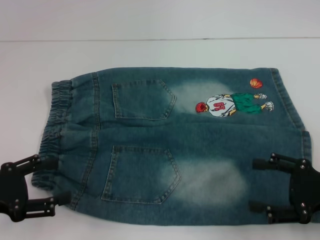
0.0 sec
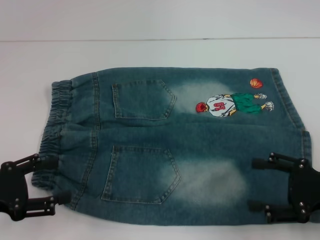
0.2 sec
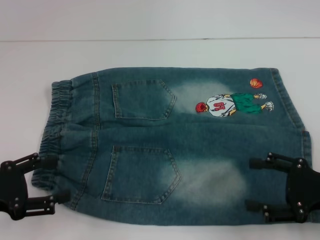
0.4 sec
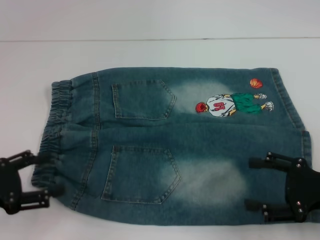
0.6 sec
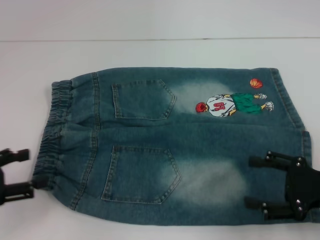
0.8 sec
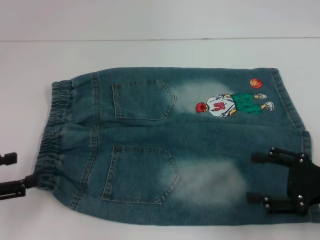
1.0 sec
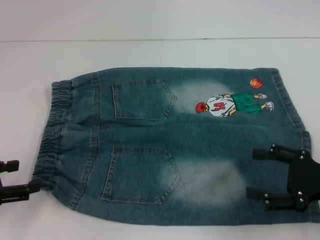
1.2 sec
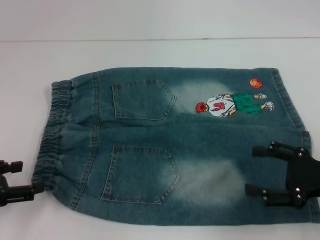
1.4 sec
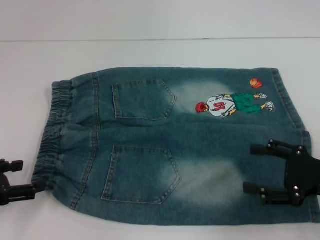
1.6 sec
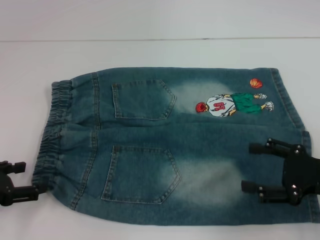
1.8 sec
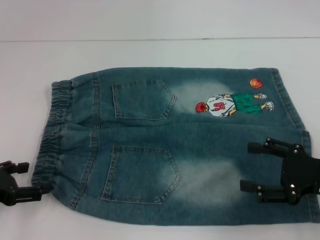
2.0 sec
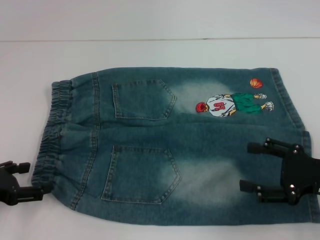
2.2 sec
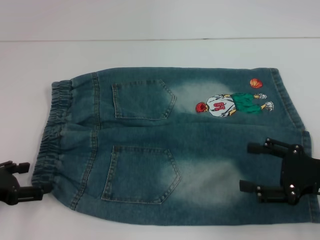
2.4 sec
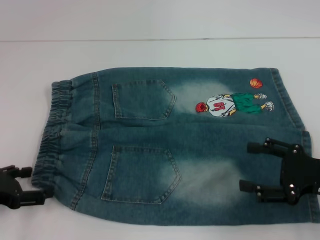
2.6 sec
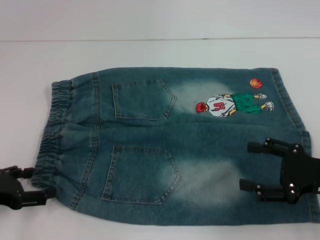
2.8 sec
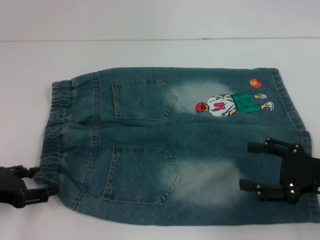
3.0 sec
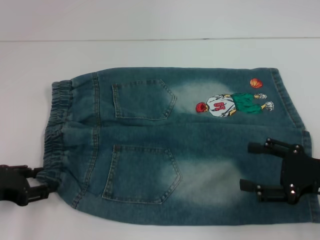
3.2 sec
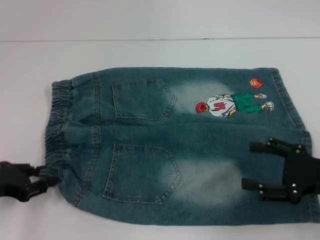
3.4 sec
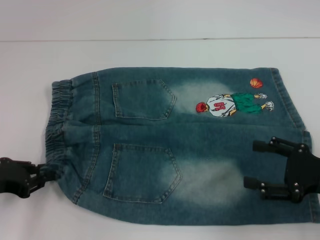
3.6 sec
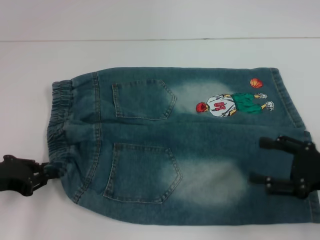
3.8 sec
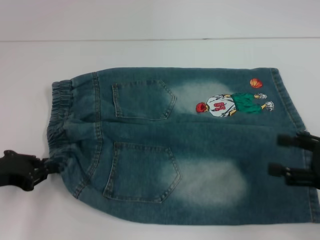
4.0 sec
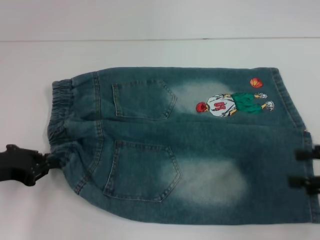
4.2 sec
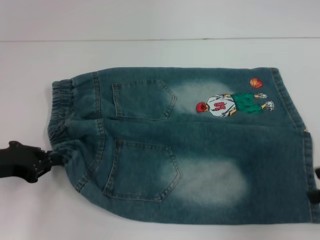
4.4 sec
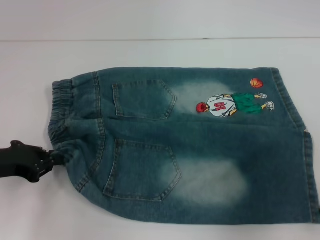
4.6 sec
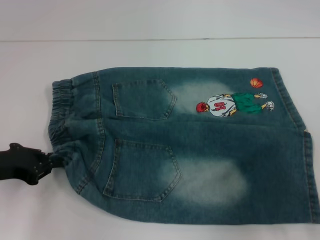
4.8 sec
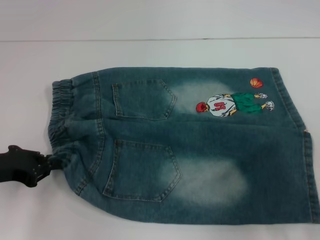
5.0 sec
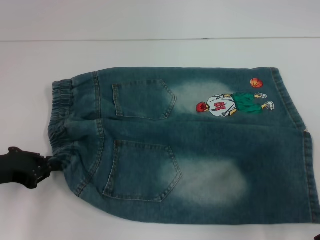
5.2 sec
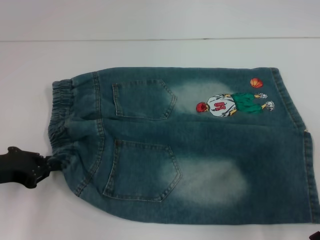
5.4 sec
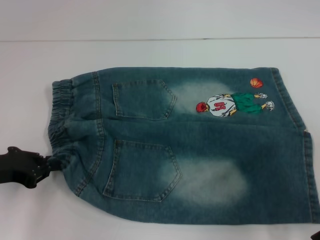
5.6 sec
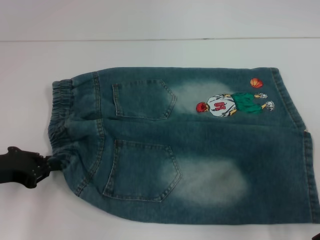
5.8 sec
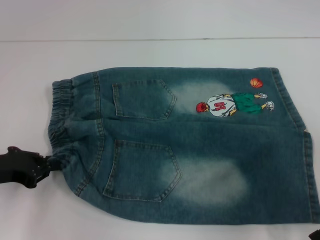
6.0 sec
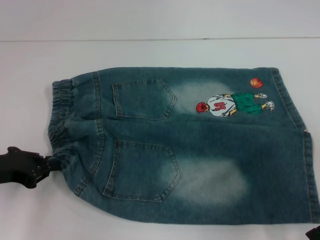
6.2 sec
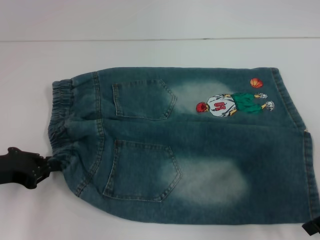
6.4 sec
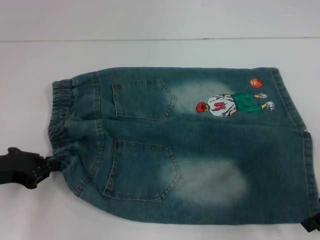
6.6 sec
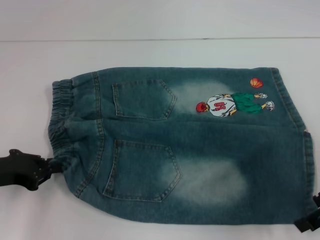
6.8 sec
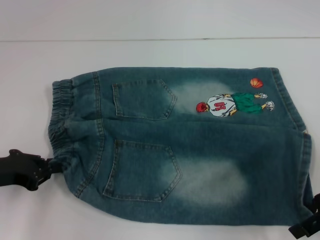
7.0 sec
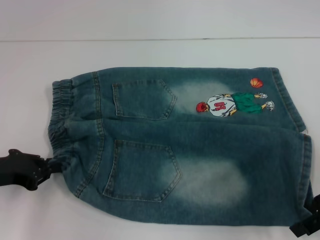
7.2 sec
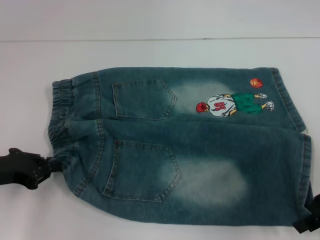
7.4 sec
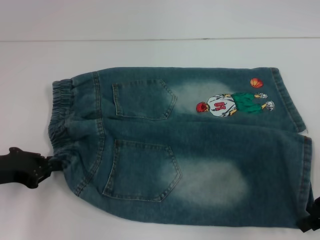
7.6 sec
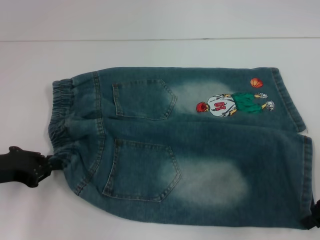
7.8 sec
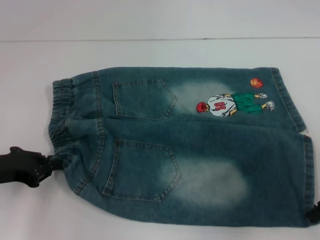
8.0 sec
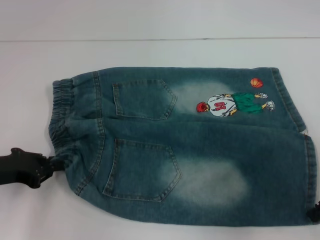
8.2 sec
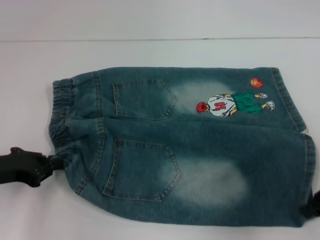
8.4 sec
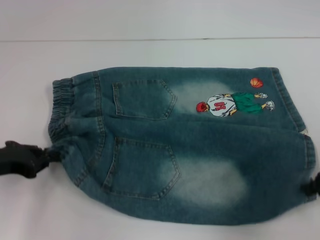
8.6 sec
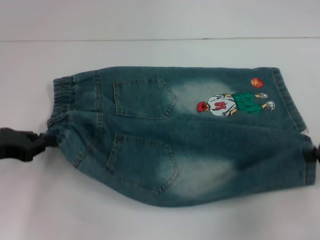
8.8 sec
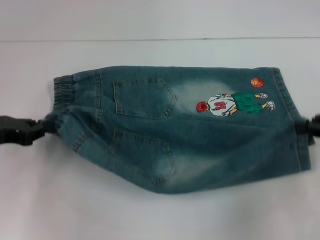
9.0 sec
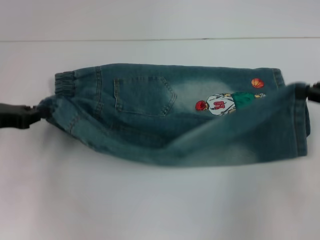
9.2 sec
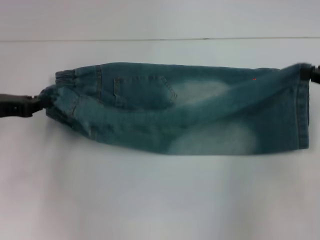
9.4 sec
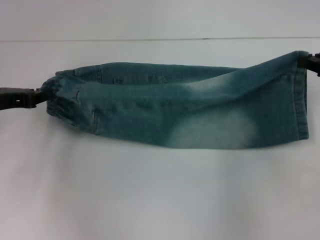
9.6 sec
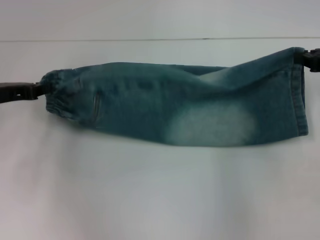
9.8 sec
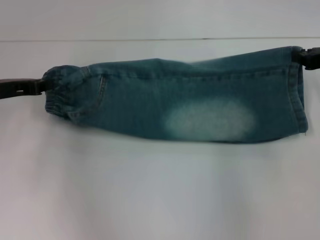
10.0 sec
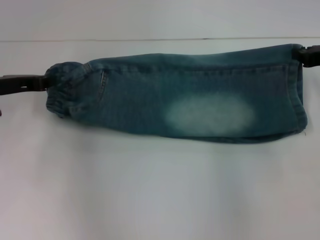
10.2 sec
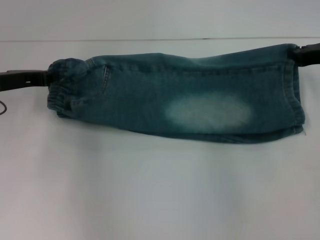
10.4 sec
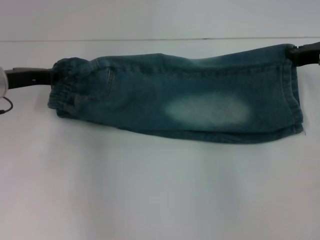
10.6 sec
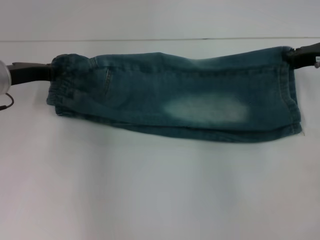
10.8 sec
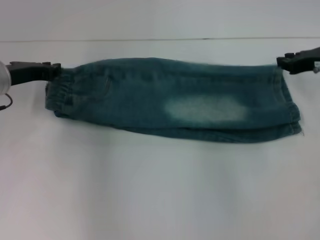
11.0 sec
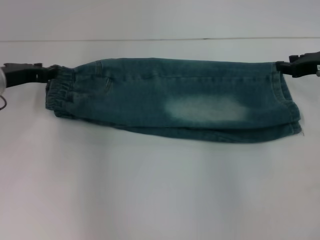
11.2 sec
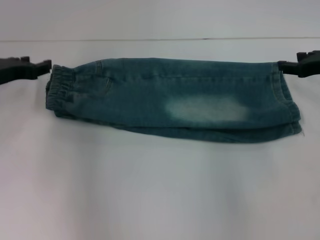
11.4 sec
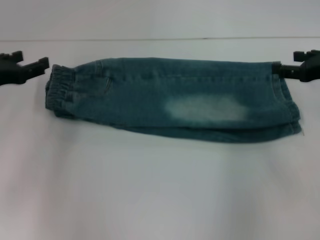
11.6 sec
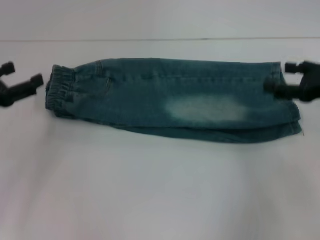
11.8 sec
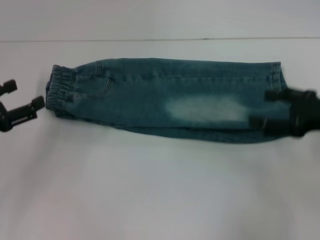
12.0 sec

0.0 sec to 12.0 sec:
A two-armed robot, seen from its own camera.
Step, 0.0 sec to 3.6 sec: Hold the lower left waistband with your left hand.
Step, 3.8 sec to 8.2 sec: Grab the lower right pant leg with your right hand.
Step, 8.4 sec to 11.0 sec: Fold upward with your right hand.
1.6 sec to 3.0 sec: The grippers move only a little.
3.0 sec to 4.4 sec: The right gripper moves upward and to the right, some 10 cm, while the left gripper closes its fingers.
6.0 sec to 7.6 sec: The grippers move only a little.
7.6 sec to 9.0 sec: The right gripper changes place by approximately 5 cm, and closes up.
9.0 sec to 10.4 sec: Both grippers move forward, approximately 10 cm.
10.4 sec to 12.0 sec: The left gripper is displaced backward and to the left by roughly 10 cm, and opens its fingers. Meanwhile the right gripper shifts about 10 cm backward, and opens.

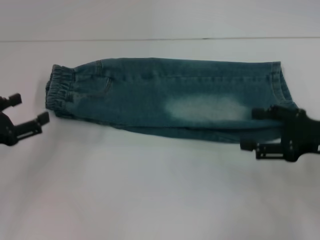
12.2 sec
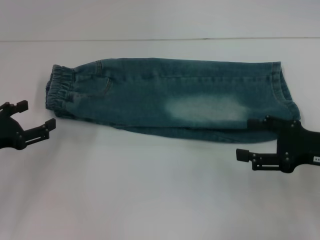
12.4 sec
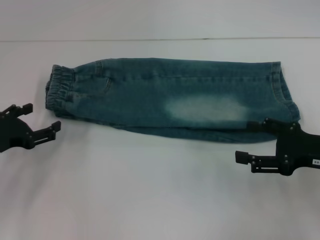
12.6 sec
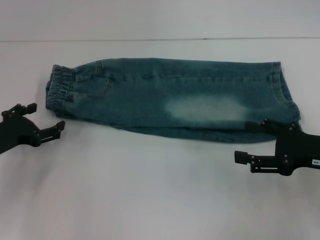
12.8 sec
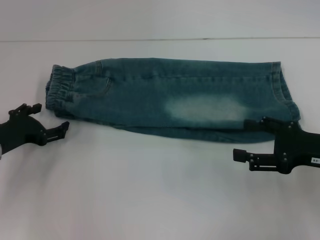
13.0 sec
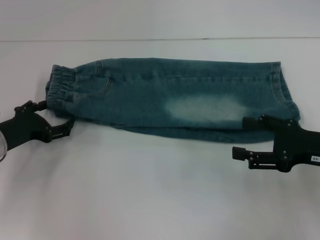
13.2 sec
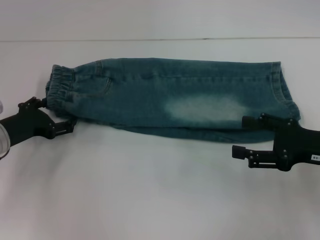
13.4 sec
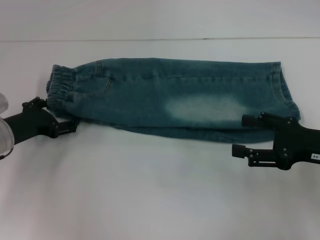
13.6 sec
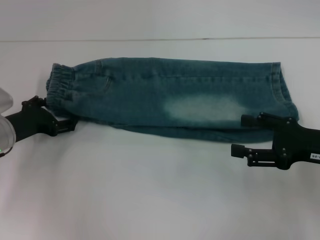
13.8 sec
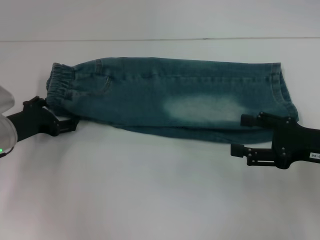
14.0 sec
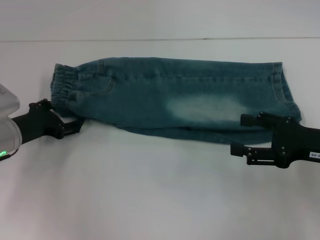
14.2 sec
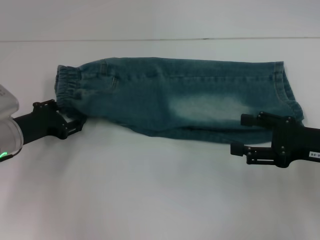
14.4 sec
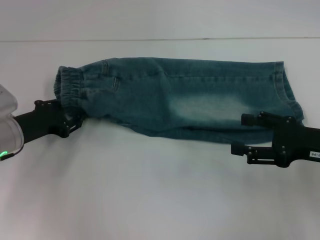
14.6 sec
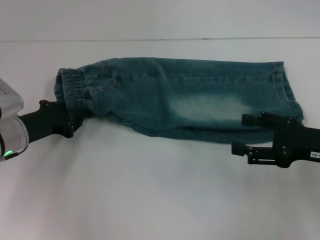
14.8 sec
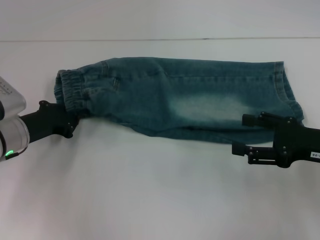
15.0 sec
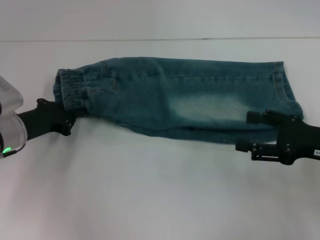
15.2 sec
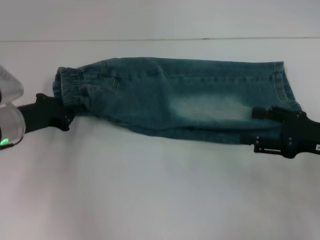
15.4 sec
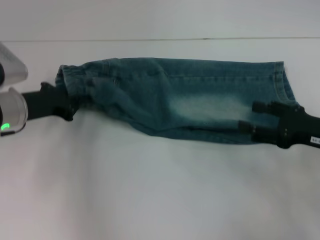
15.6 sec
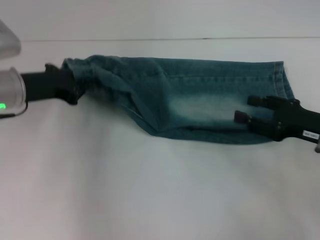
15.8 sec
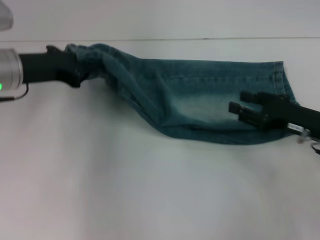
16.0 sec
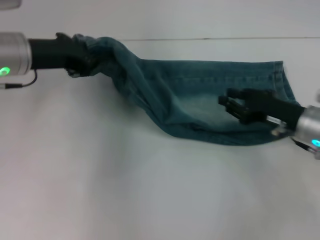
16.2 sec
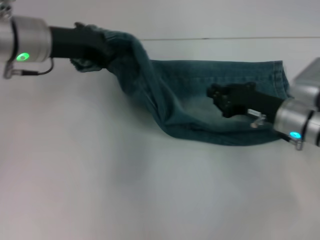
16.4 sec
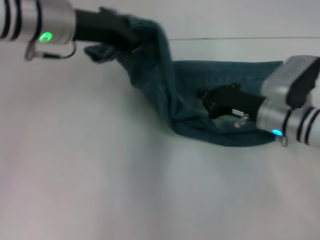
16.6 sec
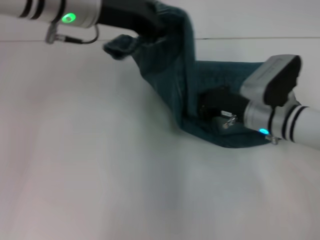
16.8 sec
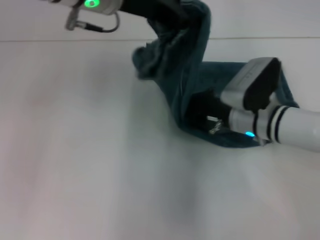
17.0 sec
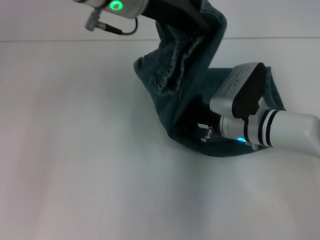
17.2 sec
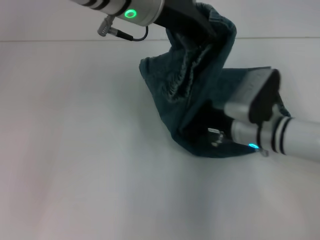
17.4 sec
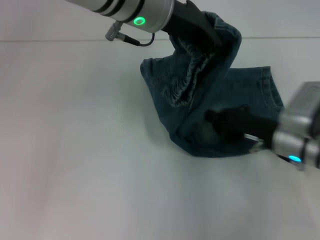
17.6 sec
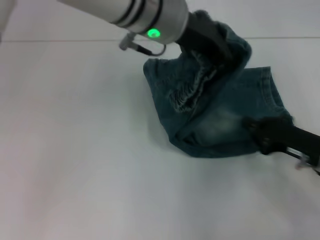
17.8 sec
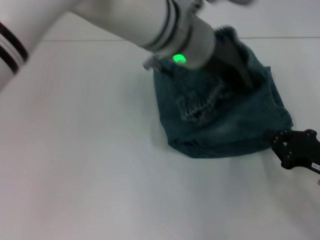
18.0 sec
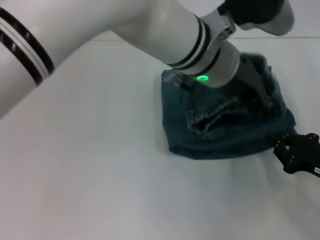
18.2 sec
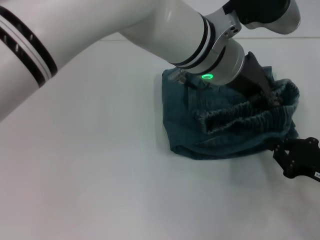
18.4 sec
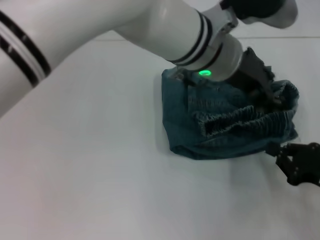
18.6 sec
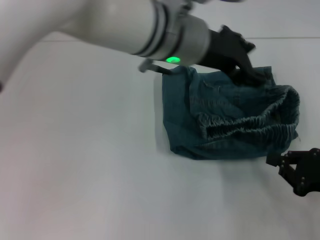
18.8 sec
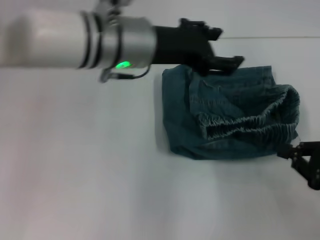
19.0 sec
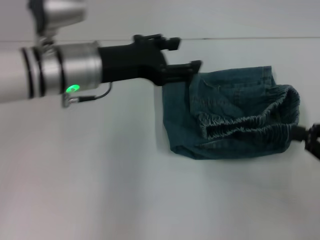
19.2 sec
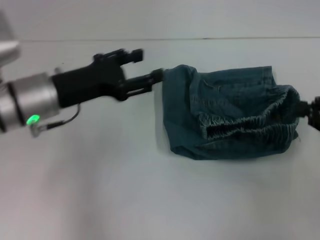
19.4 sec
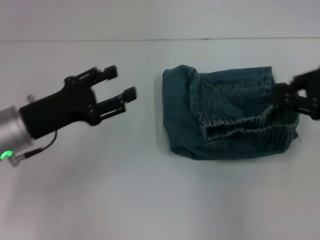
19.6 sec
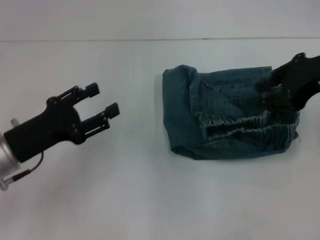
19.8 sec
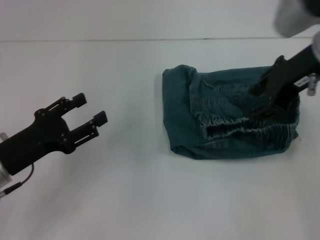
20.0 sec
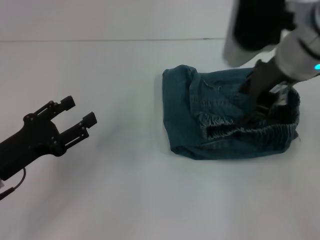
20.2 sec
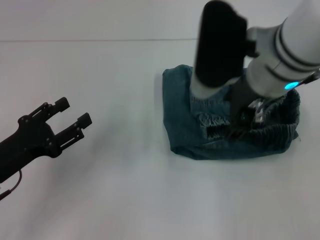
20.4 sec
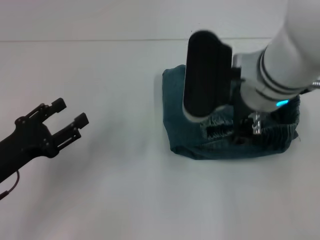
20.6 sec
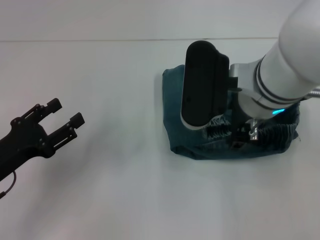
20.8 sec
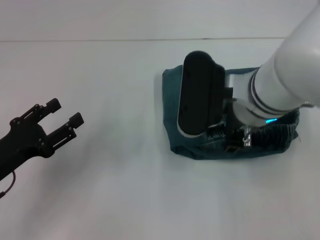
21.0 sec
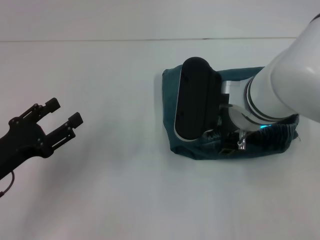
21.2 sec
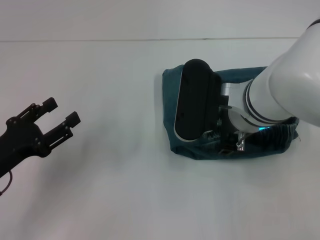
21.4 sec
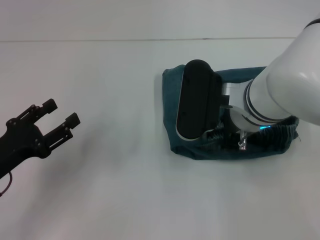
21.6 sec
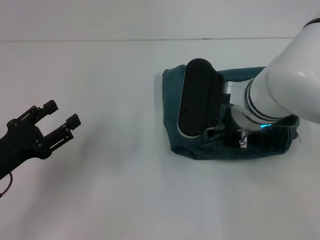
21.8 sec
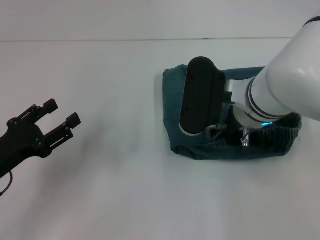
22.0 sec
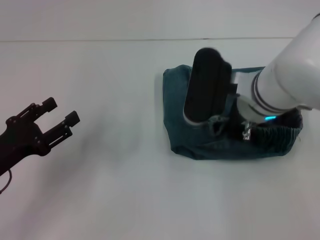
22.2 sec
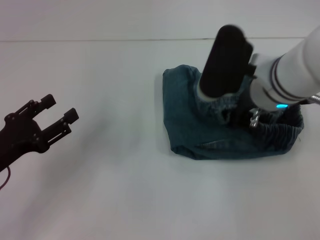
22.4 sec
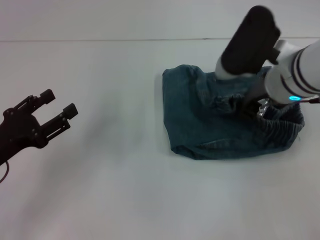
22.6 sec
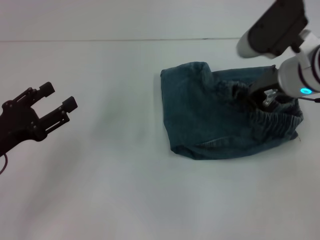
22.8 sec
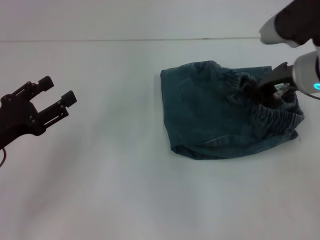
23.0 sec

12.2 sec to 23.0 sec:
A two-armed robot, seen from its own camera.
Step, 12.2 sec to 15.0 sec: Hold the waistband with your left hand.
Step, 15.4 sec to 17.2 sec: Press the middle of the pants with your right hand.
Step, 17.4 sec to 18.6 sec: Fold to the right with your left hand.
12.2 sec to 13.8 sec: The left gripper is displaced forward and to the right by about 10 cm.
13.8 sec to 15.2 sec: The left gripper closes its fingers.
15.2 sec to 16.8 sec: The right gripper moves to the left, forward and downward, approximately 15 cm, and closes up. The left gripper moves upward and to the right, roughly 25 cm.
16.8 sec to 18.4 sec: The right gripper shifts about 20 cm to the right and backward, while the left gripper moves to the right, some 15 cm.
18.4 sec to 20.0 sec: The right gripper heads upward, to the left and forward, covering about 30 cm. The left gripper shifts roughly 35 cm to the left and downward, and opens up.
20.0 sec to 21.4 sec: The right gripper shifts roughly 15 cm to the left and downward, and opens.
21.4 sec to 23.0 sec: The right gripper heads to the right, covering approximately 10 cm, and closes its fingers.
